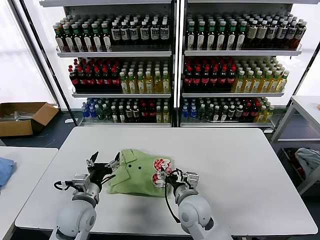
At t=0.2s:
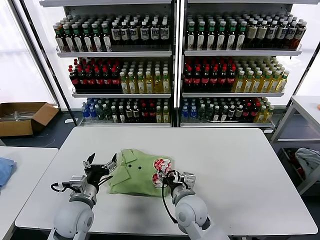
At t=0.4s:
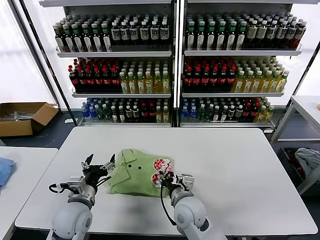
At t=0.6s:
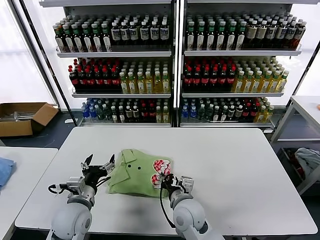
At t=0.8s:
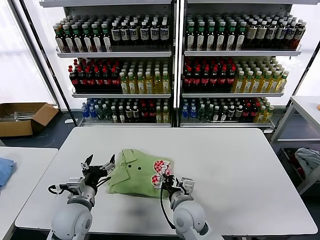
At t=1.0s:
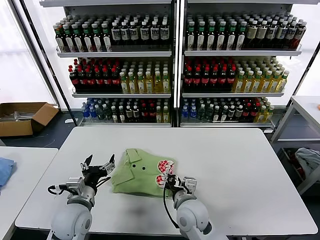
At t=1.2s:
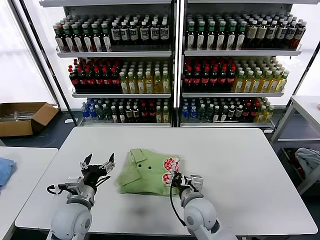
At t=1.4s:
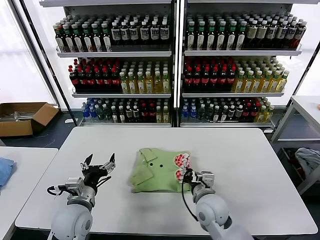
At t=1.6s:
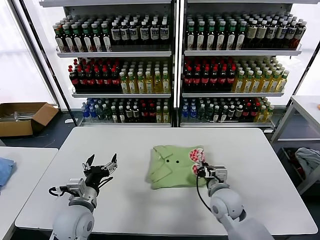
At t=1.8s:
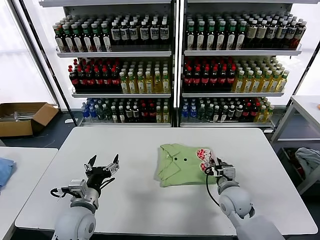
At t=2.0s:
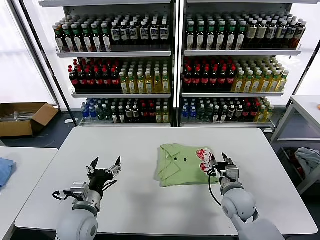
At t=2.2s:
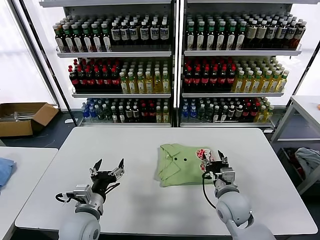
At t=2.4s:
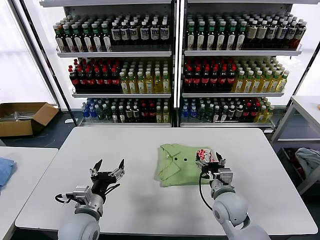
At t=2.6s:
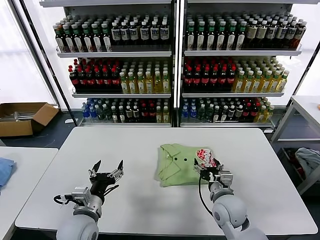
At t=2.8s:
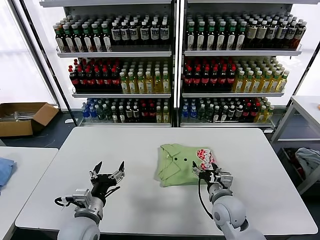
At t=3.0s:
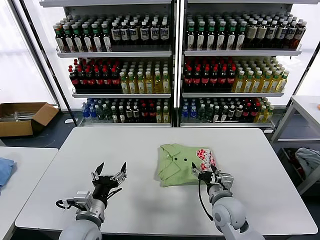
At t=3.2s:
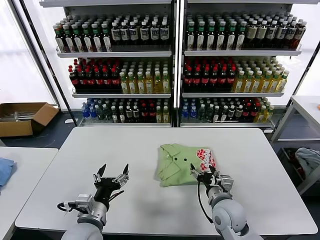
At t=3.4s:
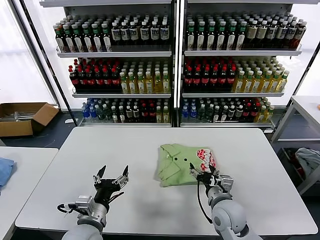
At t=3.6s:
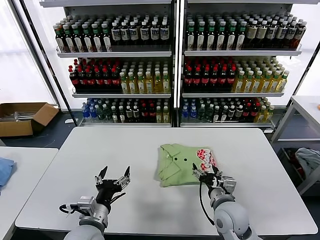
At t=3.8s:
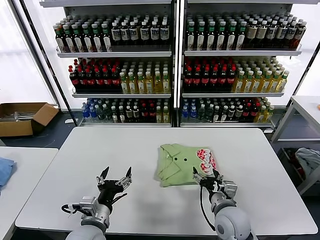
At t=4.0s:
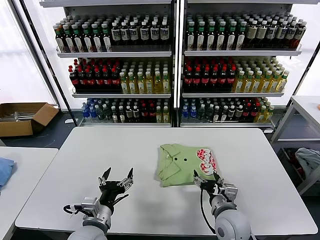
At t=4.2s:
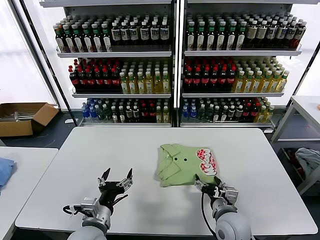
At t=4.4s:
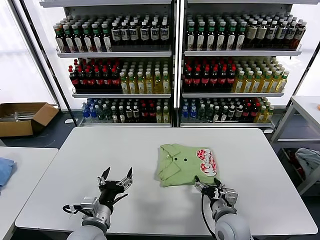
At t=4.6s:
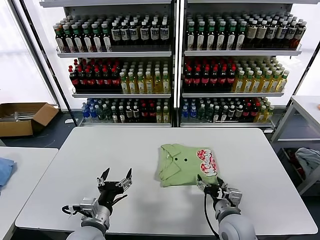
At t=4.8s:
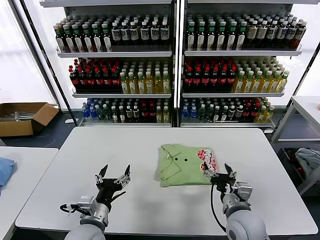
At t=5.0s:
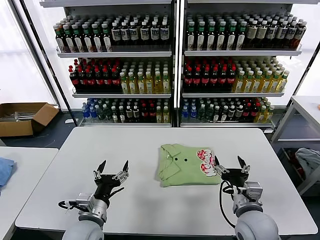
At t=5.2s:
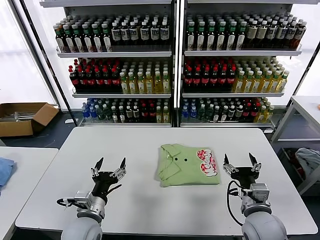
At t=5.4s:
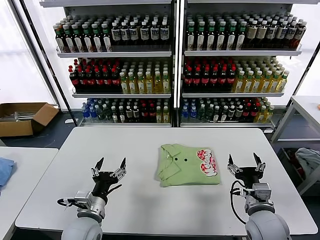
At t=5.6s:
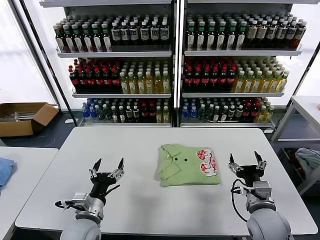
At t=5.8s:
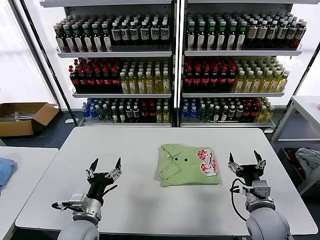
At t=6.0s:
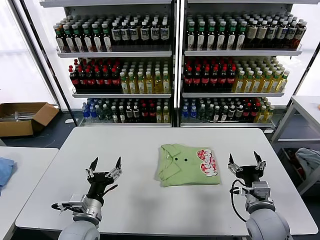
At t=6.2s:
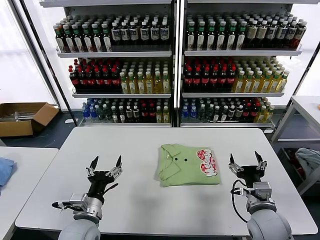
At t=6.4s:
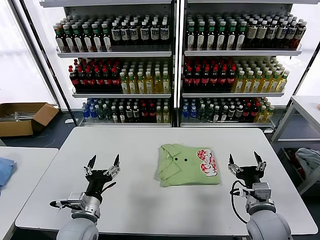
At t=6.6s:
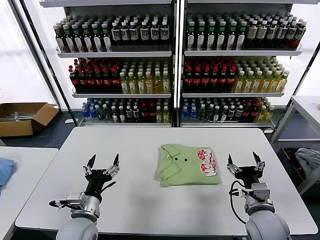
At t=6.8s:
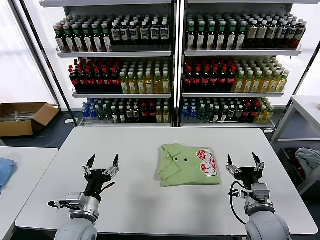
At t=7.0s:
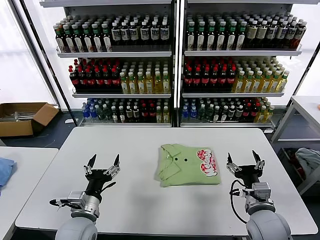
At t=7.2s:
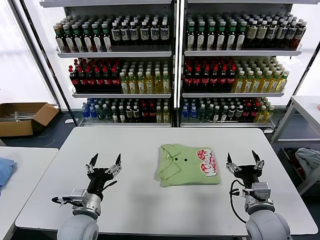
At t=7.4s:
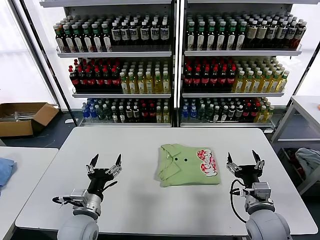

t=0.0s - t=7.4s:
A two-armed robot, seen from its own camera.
Task of the whole recording: fold and organize the clothes.
Step, t=0.0s - t=4.8s: Drag the clothes to the center of the table.
t=0.0s - t=1.4s: The right gripper closes up.
t=1.4s - t=3.0s: The right gripper is displaced to the right by roughly 5 cm, and opens, while the left gripper ends up some 5 cm from where it was.
t=3.0s - t=4.4s: There are only small adjustments of the grippers.
t=4.4s - t=6.0s: The right gripper travels to the right and upward by approximately 10 cm.
t=6.0s - t=7.4s: The grippers stay close to where they were, moving slightly.
